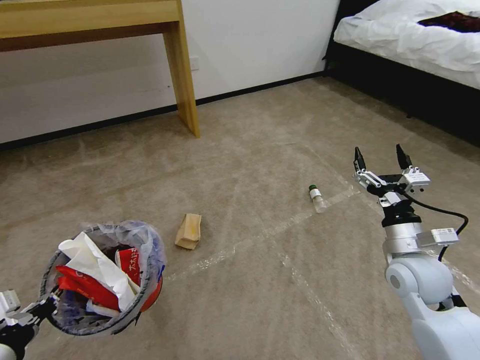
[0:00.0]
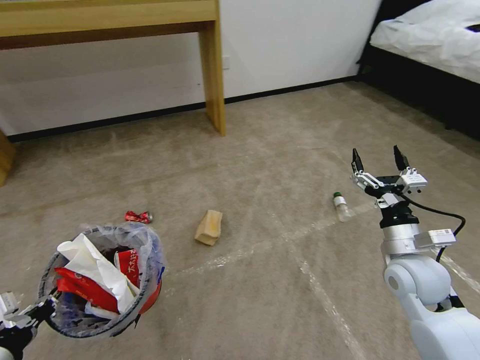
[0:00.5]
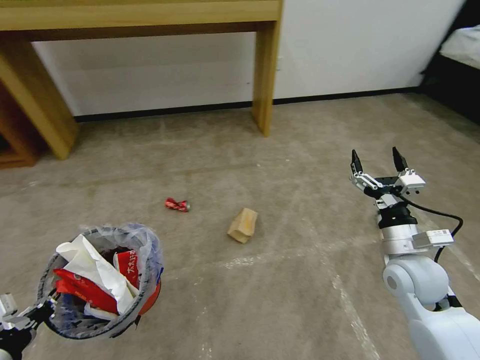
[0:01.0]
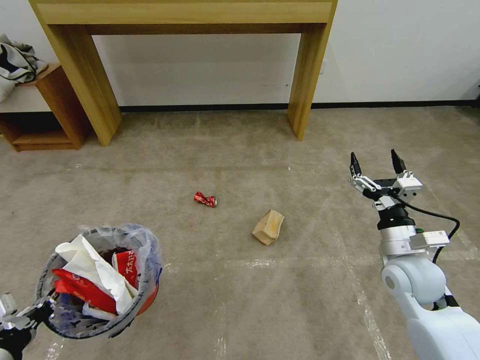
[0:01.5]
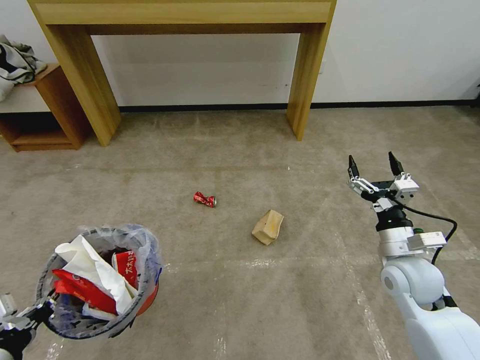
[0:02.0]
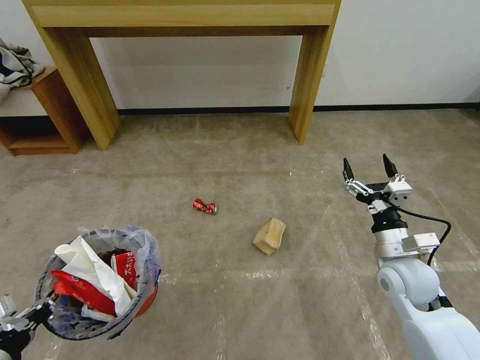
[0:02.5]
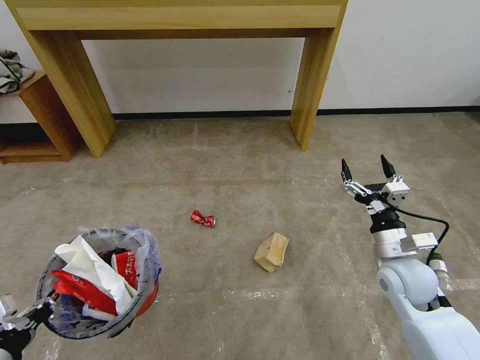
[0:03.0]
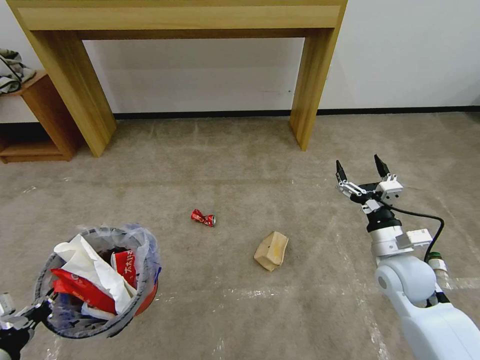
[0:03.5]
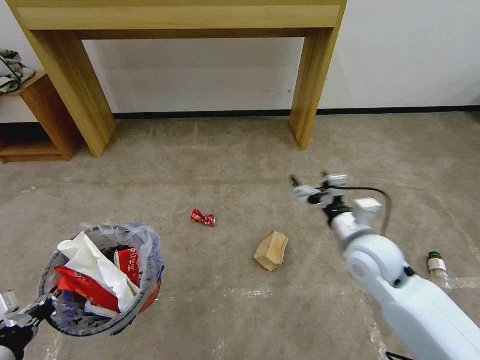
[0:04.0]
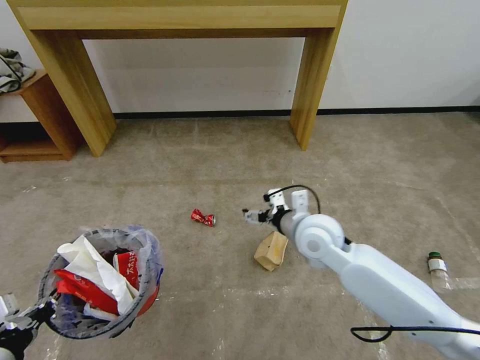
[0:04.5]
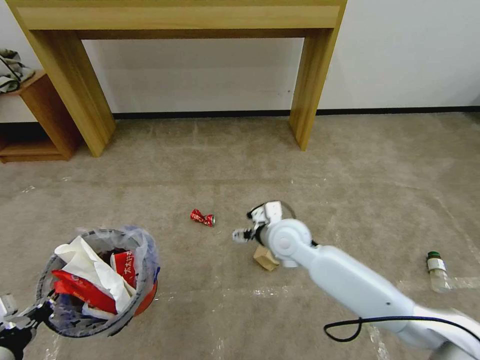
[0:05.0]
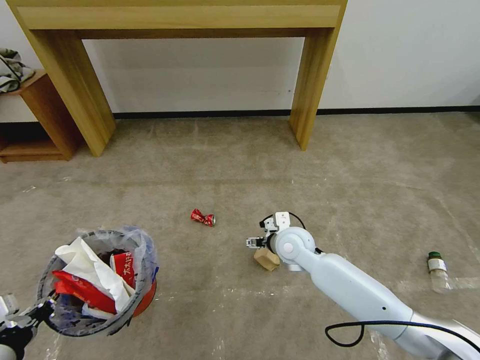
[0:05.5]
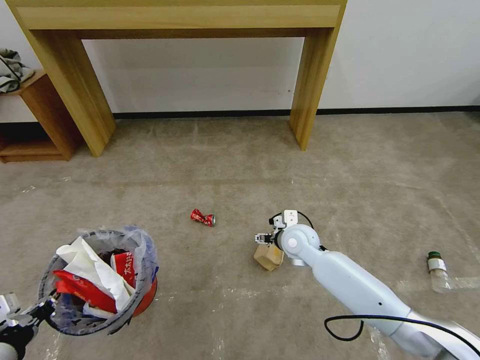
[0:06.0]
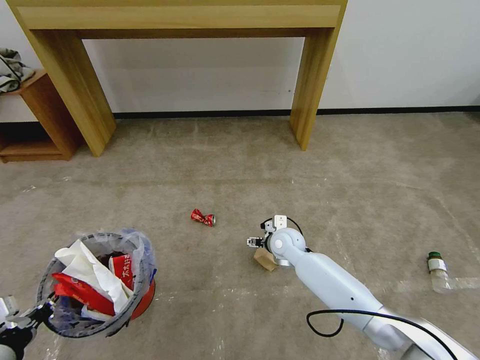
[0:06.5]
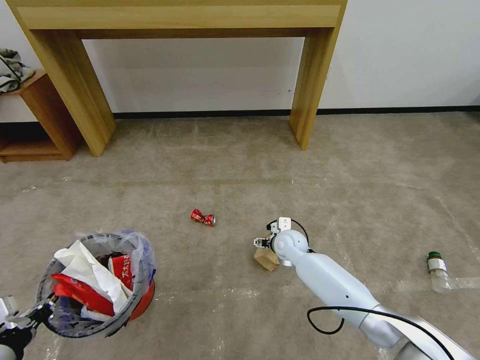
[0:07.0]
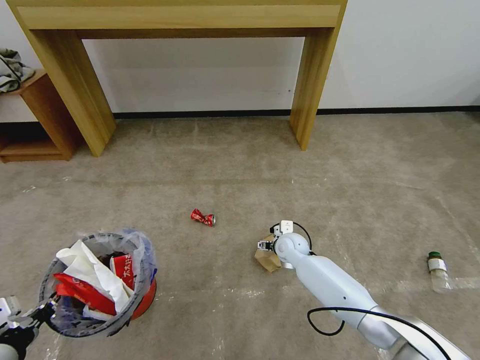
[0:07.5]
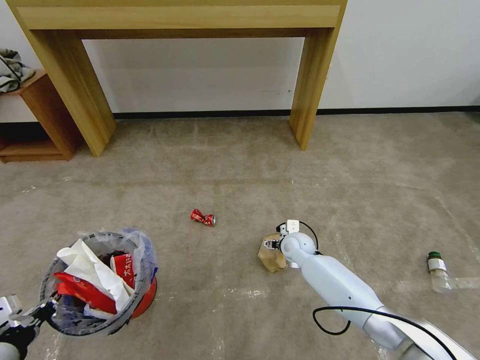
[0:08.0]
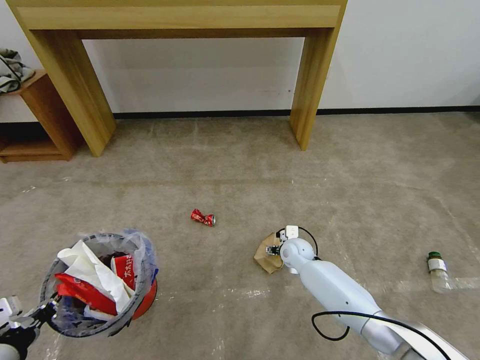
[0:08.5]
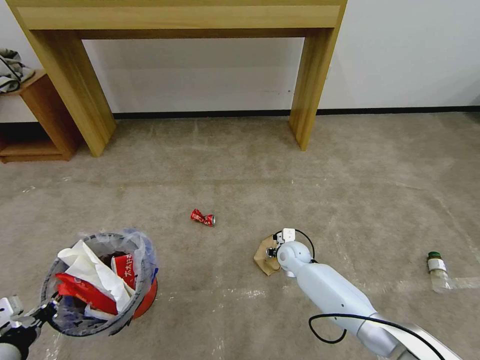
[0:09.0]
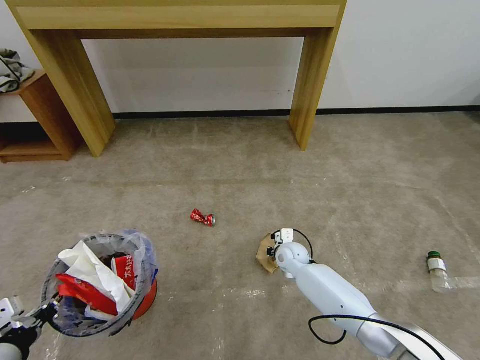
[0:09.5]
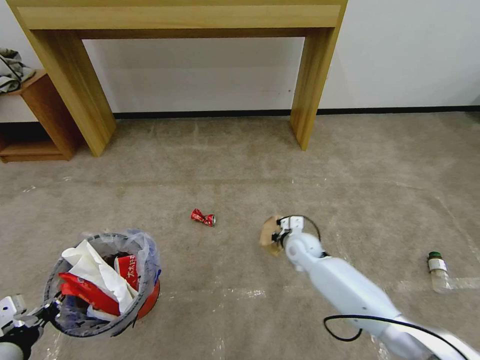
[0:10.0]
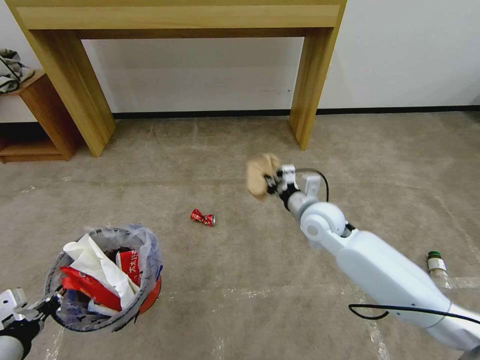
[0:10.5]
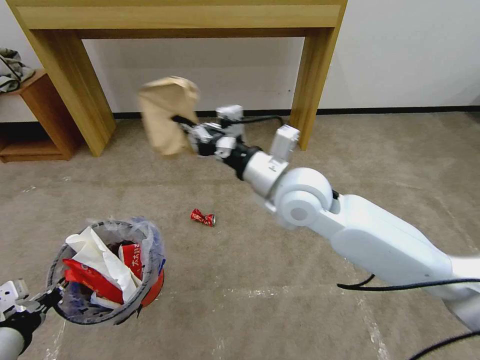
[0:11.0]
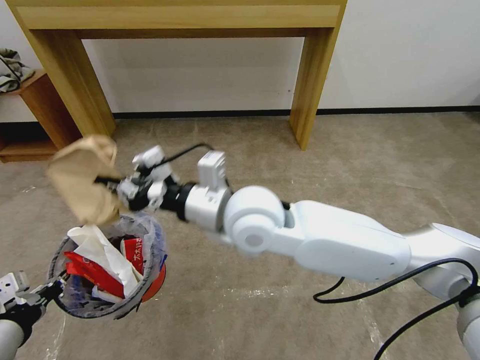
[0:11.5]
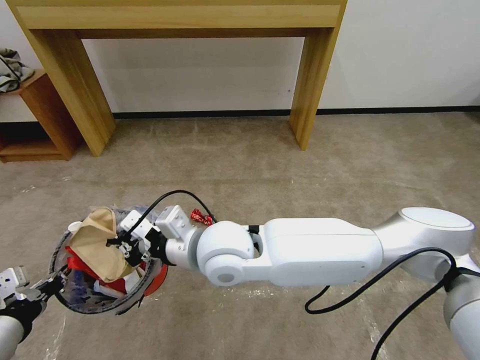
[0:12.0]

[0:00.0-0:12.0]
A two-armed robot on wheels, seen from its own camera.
Task of the whole recording: Pick up the trash bin and place the garbage on the floor into it.
0:02.0 to 0:04.0: The right gripper travels to the left by some 10 cm.
0:04.0 to 0:06.0: The right gripper heads forward, to the left and downward, covering some 20 cm.
0:06.0 to 0:08.0: The right gripper heads downward, covering about 10 cm.
0:08.0 to 0:10.0: The right gripper closes up.
0:10.0 to 0:12.0: The right gripper heads upward, to the left and backward, covering some 35 cm.

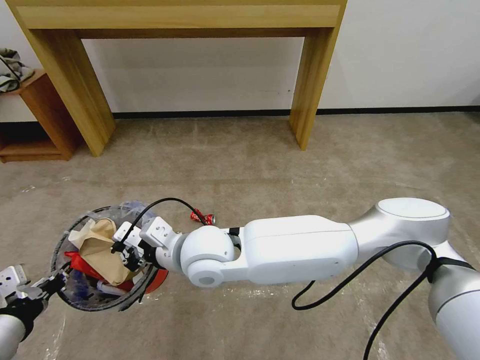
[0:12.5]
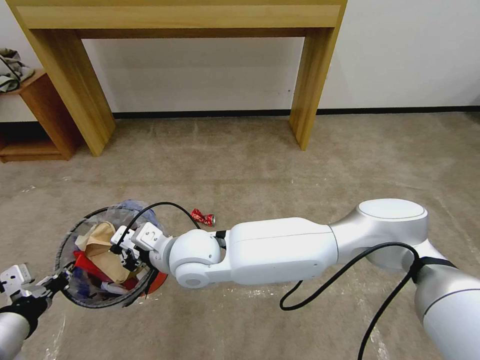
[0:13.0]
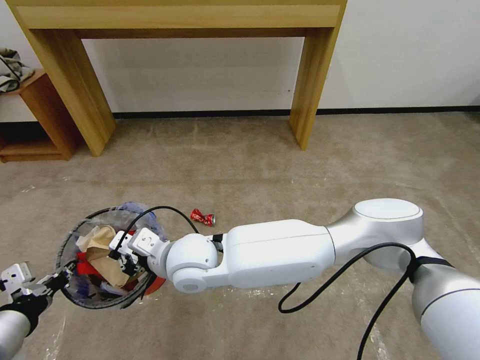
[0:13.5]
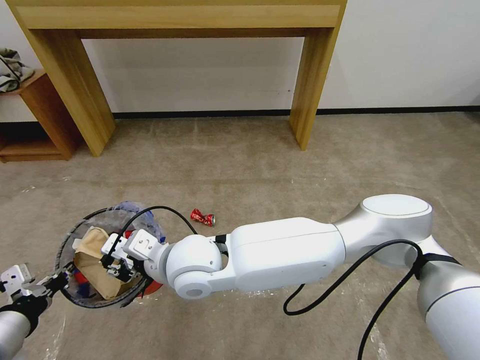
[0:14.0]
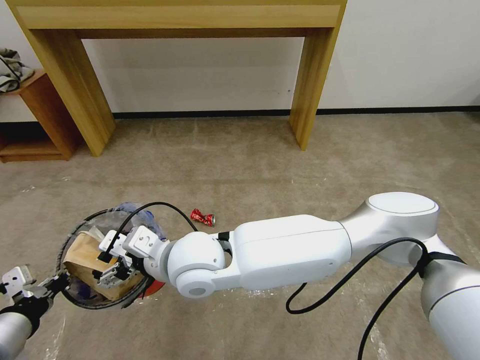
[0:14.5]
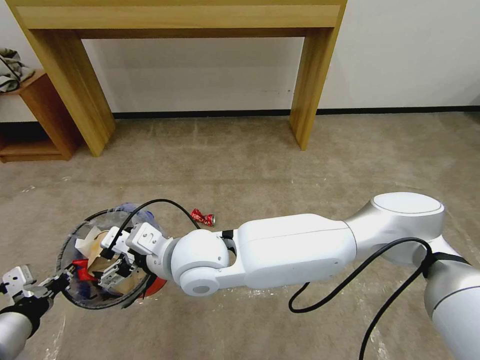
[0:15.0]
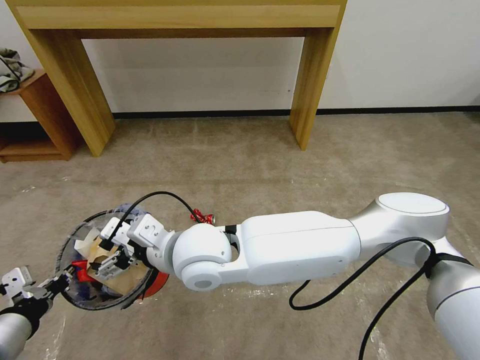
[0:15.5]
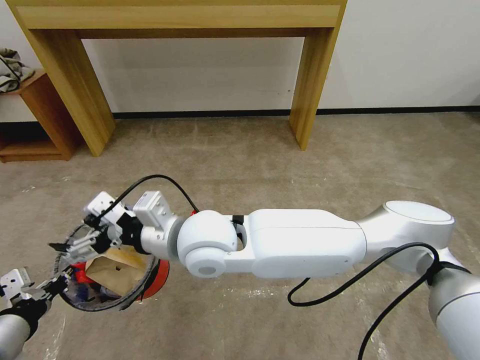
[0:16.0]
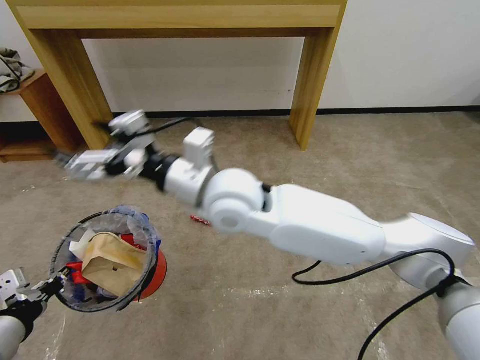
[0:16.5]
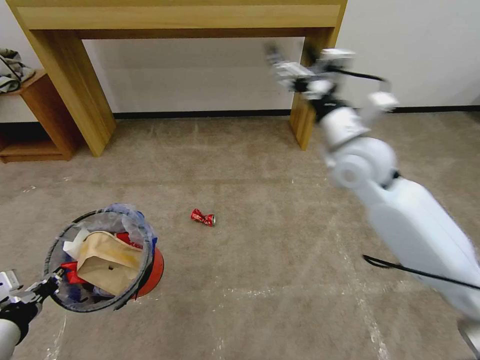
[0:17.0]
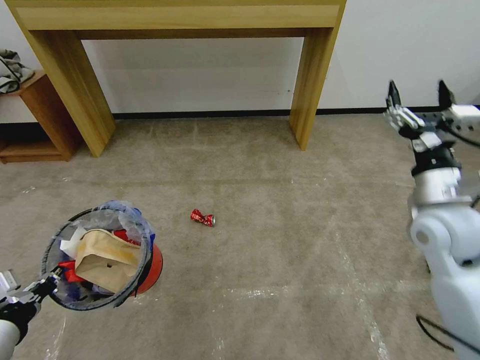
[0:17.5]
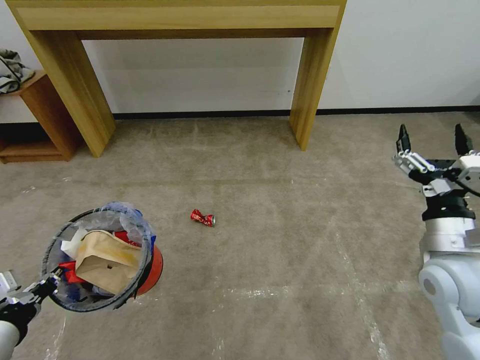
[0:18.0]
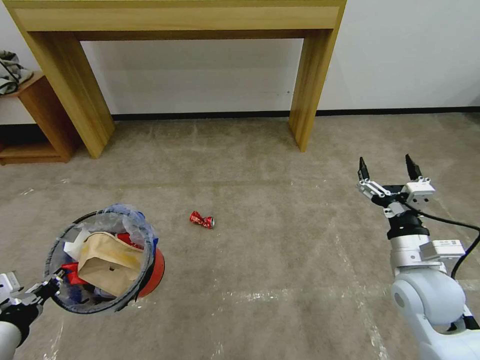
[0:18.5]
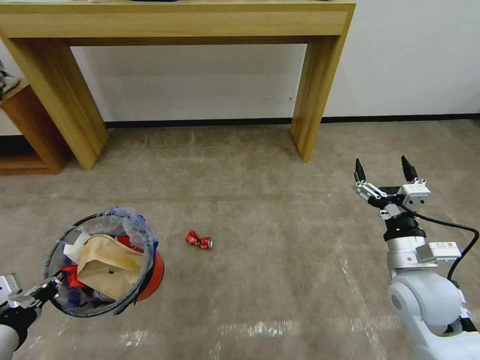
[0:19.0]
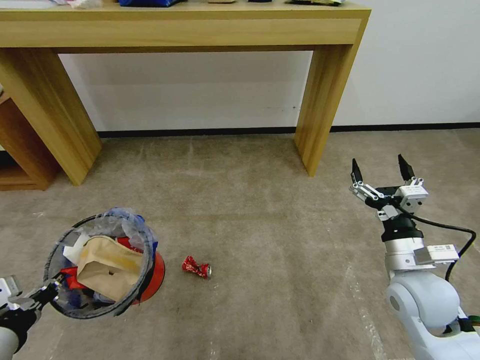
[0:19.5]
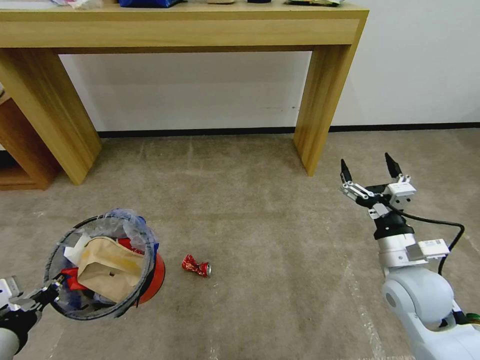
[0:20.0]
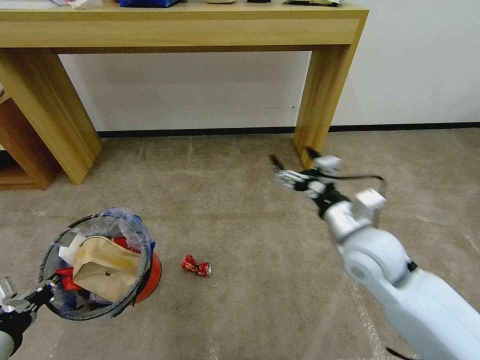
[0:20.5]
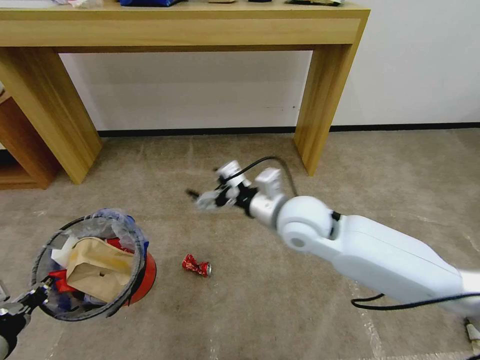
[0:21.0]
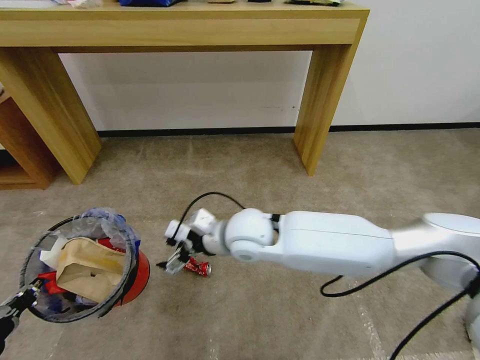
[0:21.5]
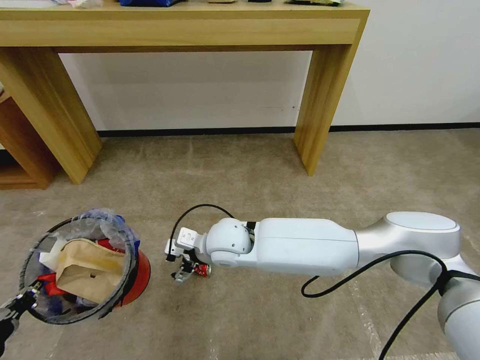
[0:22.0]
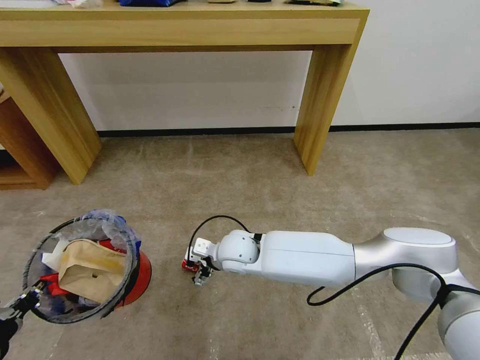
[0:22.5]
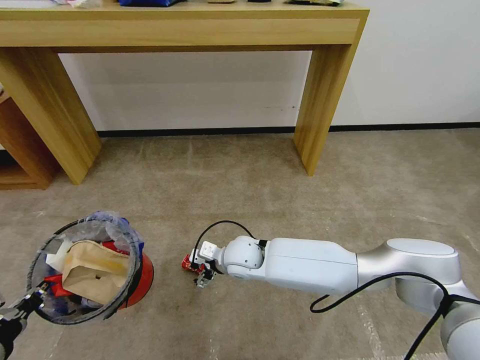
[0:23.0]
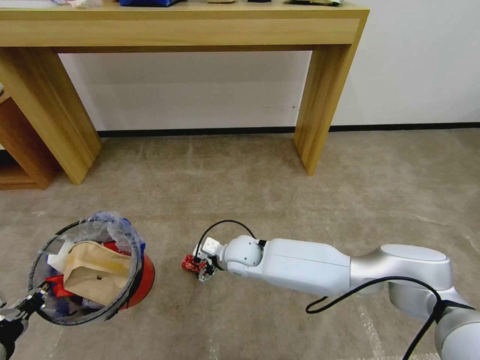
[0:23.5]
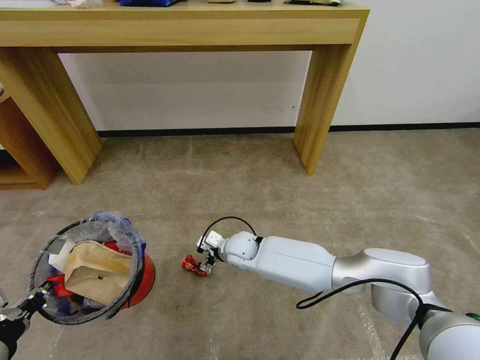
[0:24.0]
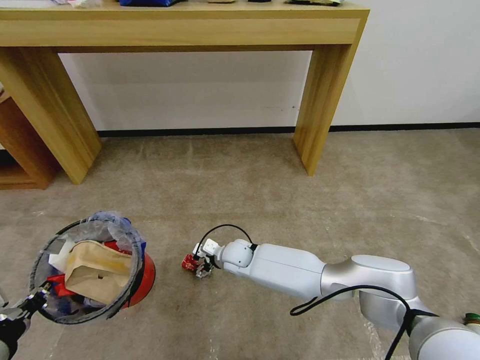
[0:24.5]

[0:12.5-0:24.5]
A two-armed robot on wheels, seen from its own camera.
Task of the whole recording: Pick up the trash bin and place the garbage on the floor into it.
0:12.5 to 0:14.5: The right gripper opens.
0:14.5 to 0:16.5: The right gripper moves upward, forward and to the right, approximately 10 cm.
0:16.5 to 0:18.5: The right gripper shifts about 40 cm to the right and downward.
0:18.5 to 0:20.5: The right gripper goes roughly 15 cm to the left, upward and forward.
0:20.5 to 0:22.5: The right gripper heads to the left and downward, covering roughly 25 cm.
0:22.5 to 0:24.5: The right gripper moves downward, some 10 cm.

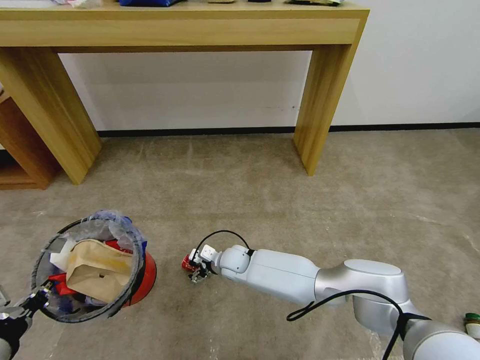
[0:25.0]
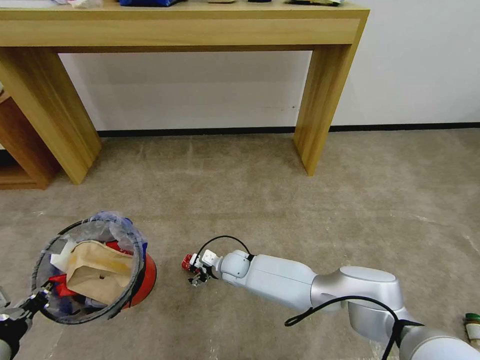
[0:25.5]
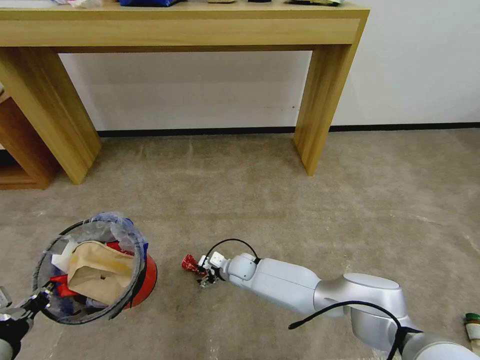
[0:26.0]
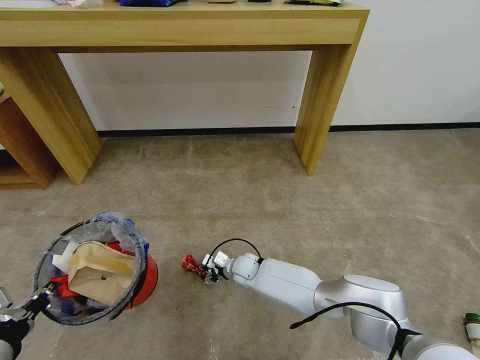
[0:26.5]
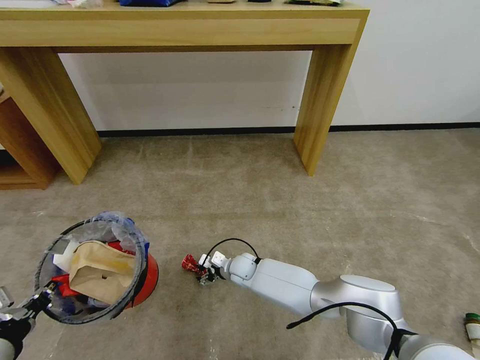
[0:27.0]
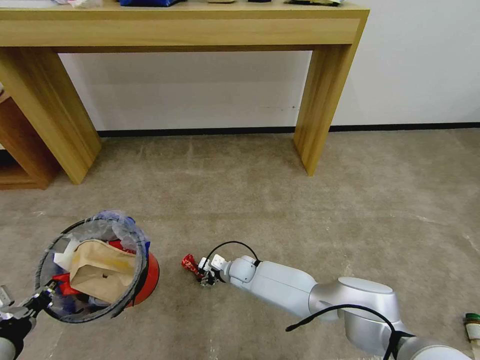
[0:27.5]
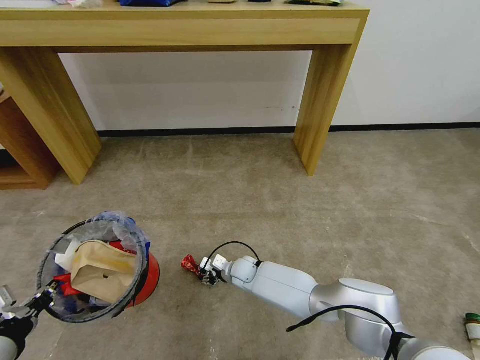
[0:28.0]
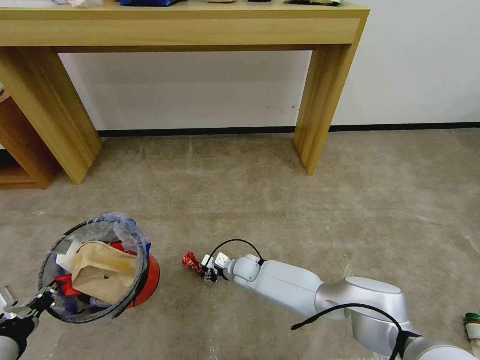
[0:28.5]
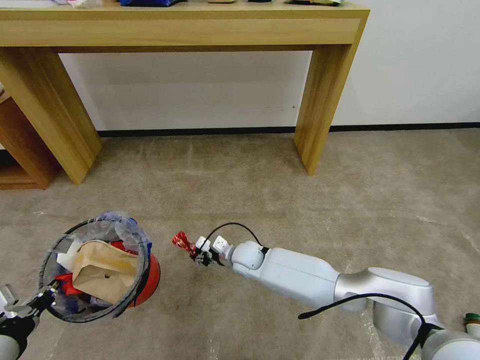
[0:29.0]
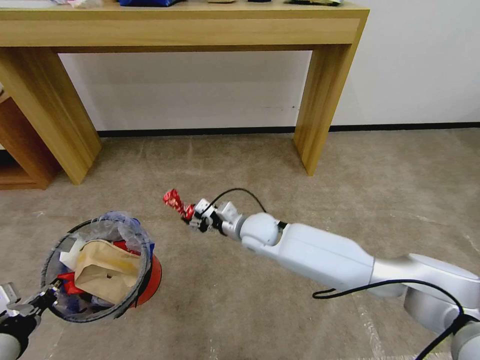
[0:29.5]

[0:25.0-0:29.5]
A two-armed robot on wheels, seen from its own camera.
Task of the whole recording: Pick up the trash bin and place the garbage on the floor into it.
0:25.0 to 0:27.0: The right gripper heads downward, covering roughly 5 cm.
0:27.0 to 0:29.5: The right gripper shifts some 20 cm upward.
